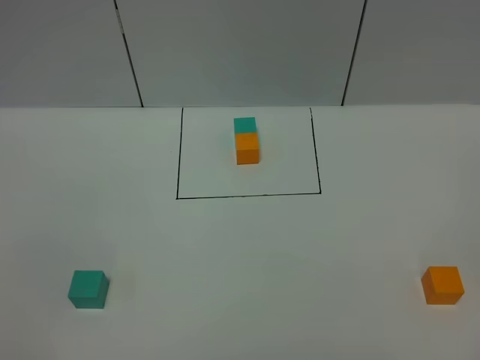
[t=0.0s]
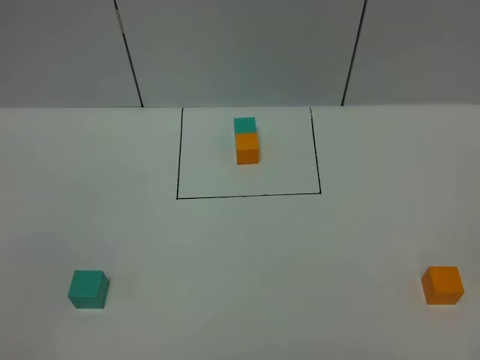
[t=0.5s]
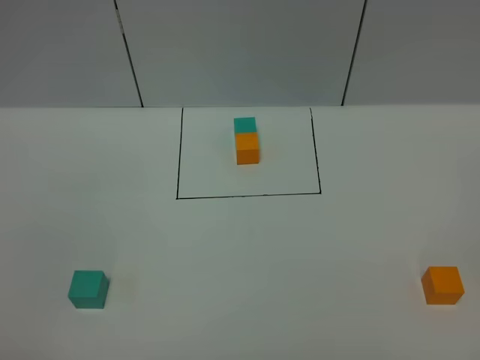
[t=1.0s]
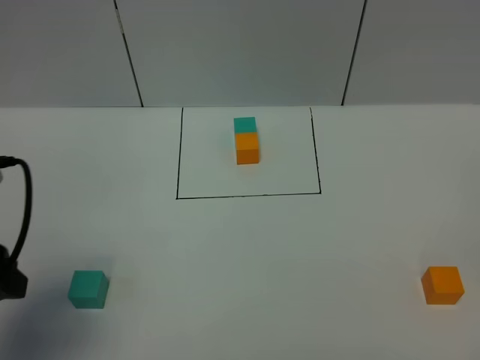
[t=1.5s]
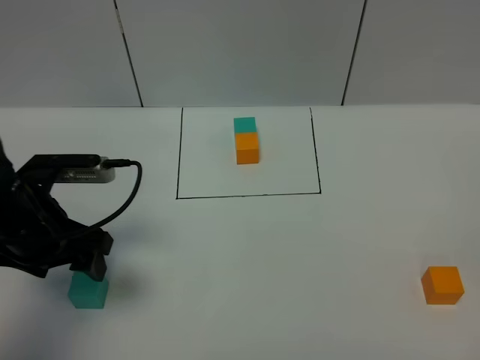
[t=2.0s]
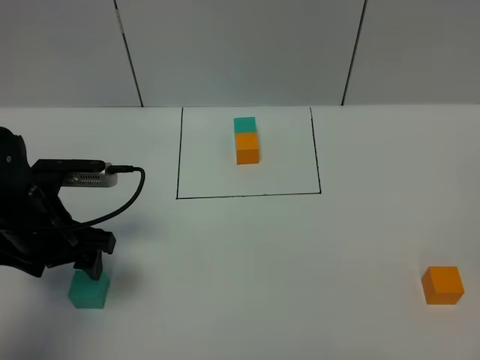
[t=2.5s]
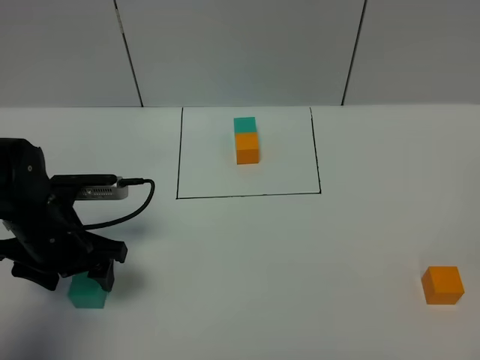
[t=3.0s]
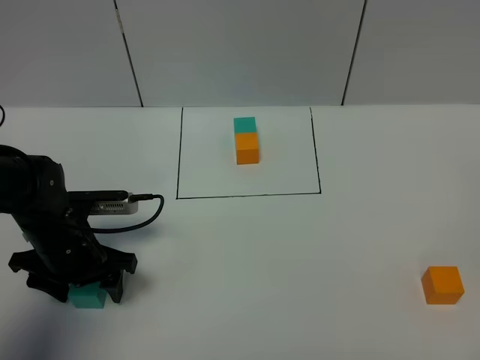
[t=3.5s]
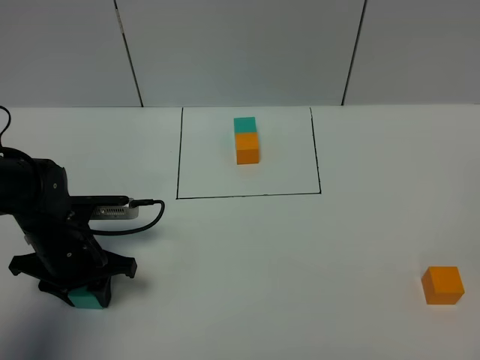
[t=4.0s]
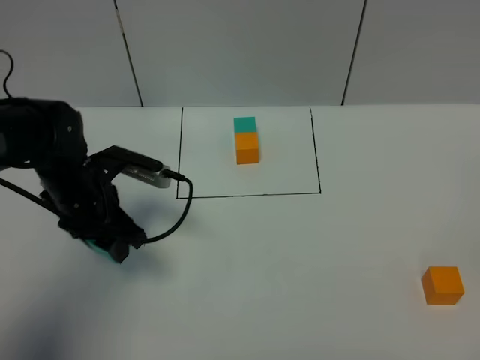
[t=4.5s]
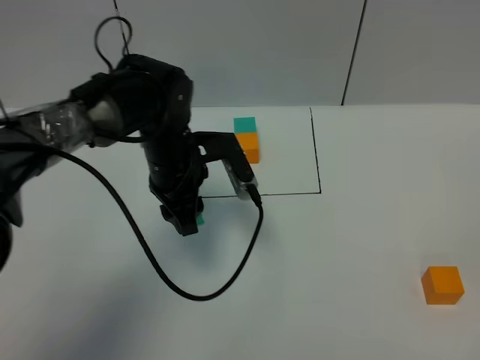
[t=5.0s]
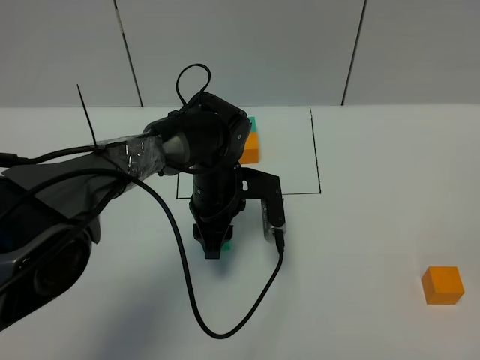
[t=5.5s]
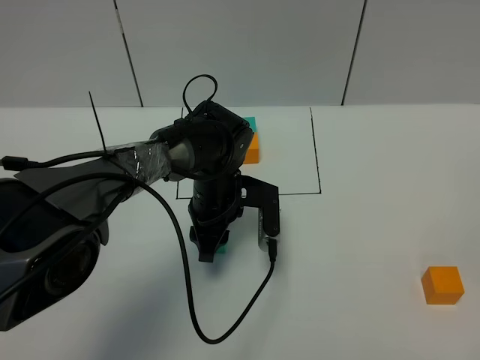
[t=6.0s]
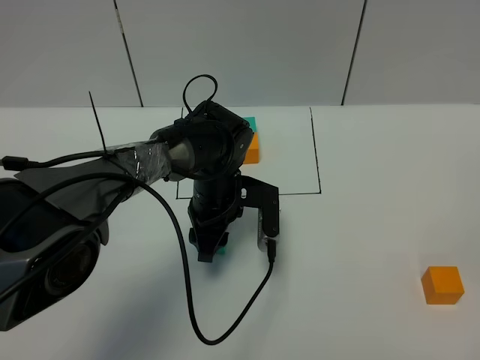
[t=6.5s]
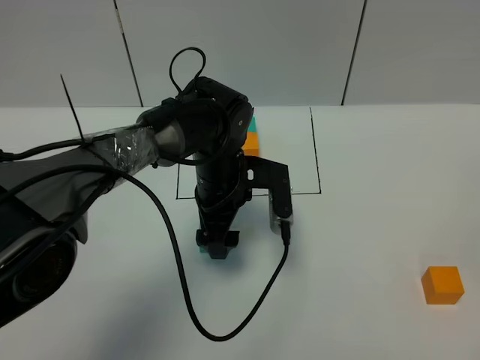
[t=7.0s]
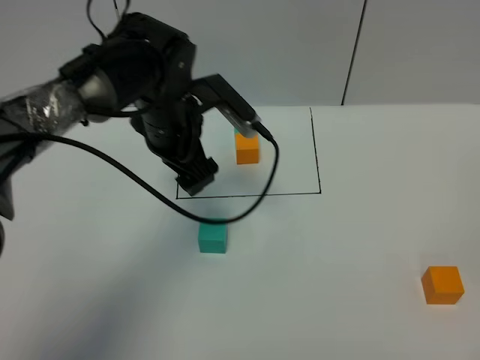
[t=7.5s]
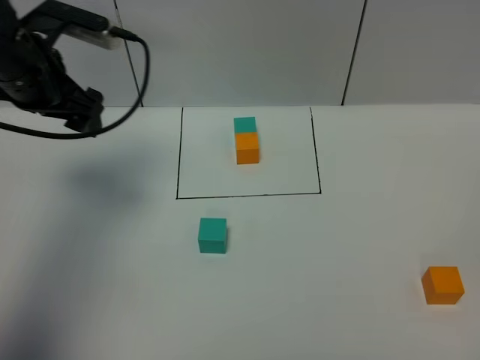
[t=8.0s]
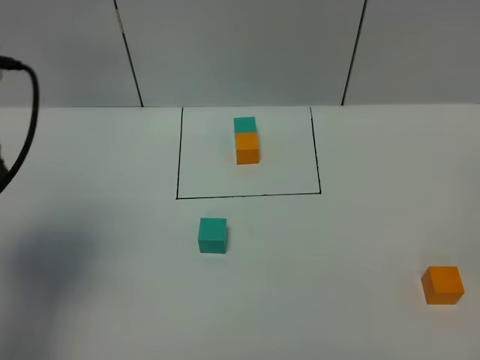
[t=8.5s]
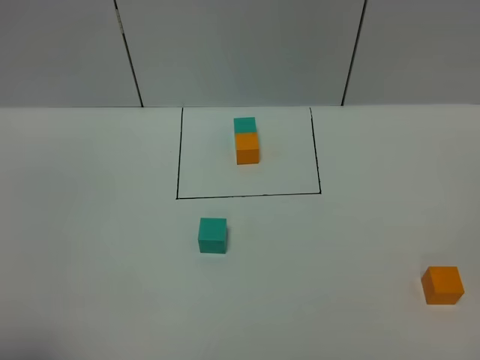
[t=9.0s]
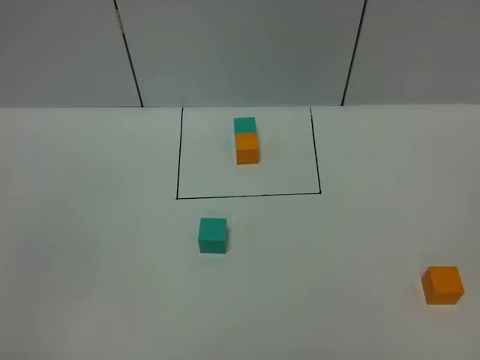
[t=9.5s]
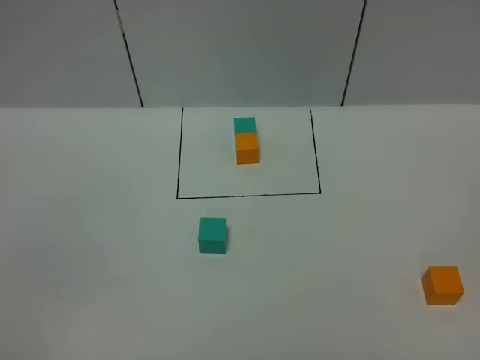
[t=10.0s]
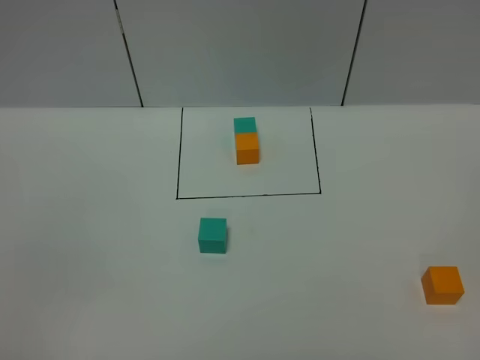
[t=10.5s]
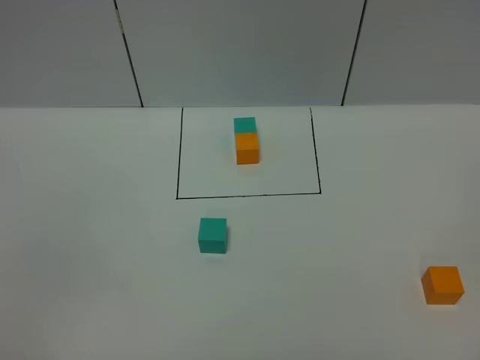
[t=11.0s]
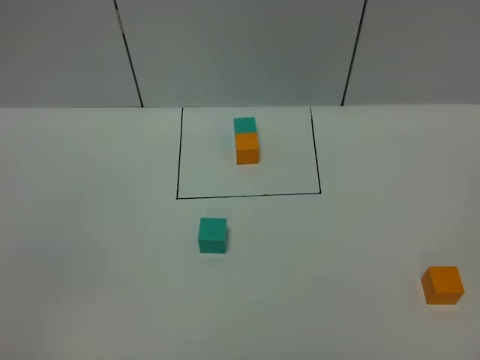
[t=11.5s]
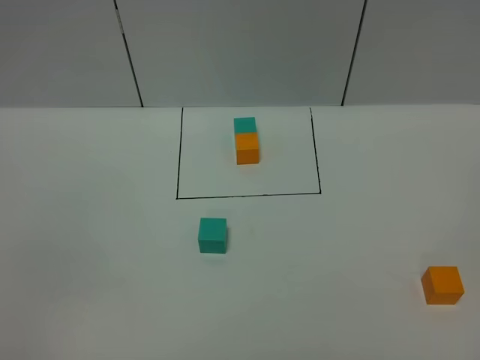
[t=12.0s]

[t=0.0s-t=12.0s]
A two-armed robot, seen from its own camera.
Task of the whole recording: According to the building block template in front, assemble the scattered blocks together.
Step, t=1.5s to t=7.0s: Put the green cube in the center of the table.
t=0.0s to t=2.0s: The left gripper heads forward, covering about 30 cm.
t=2.0s to t=4.0s: The left gripper shifts some 10 cm downward, and closes up.
t=4.0s to t=6.0s: The left gripper moves to the right and forward, roughly 20 cm.
t=6.0s to t=8.0s: The left gripper is displaced to the left and upward by some 30 cm, and opens up.
t=8.0s to t=10.0s: The left gripper is displaced backward by approximately 40 cm.

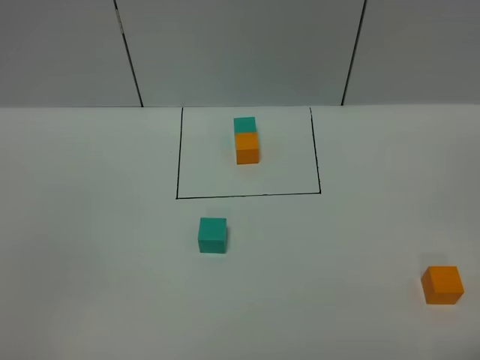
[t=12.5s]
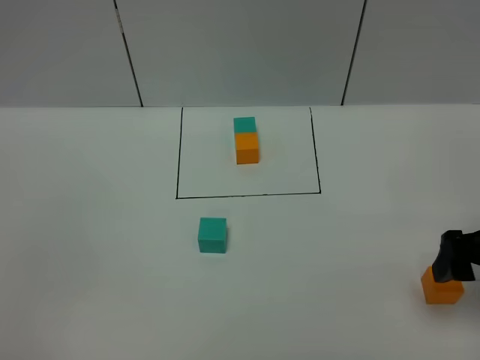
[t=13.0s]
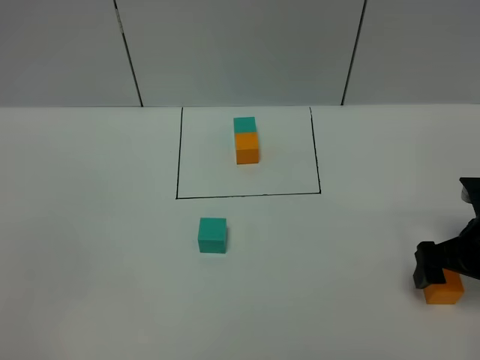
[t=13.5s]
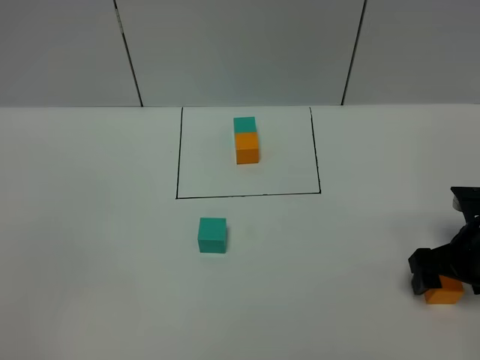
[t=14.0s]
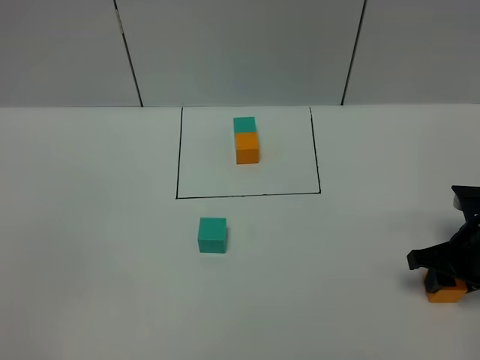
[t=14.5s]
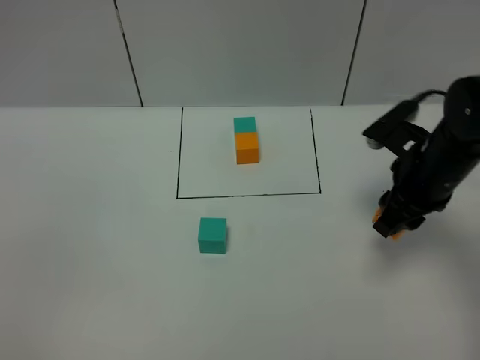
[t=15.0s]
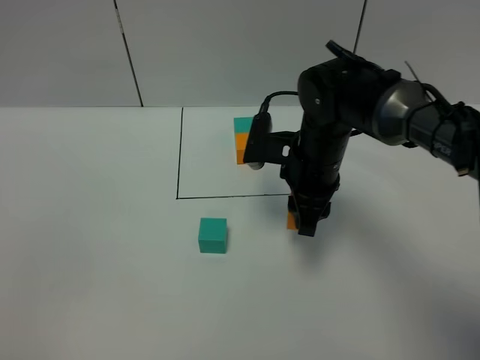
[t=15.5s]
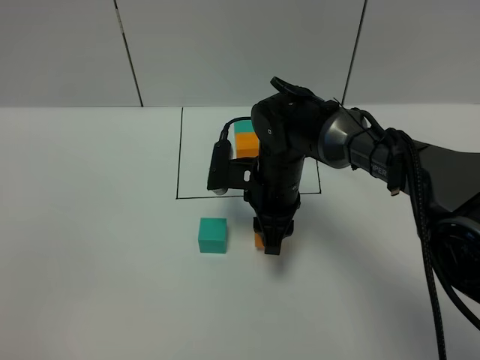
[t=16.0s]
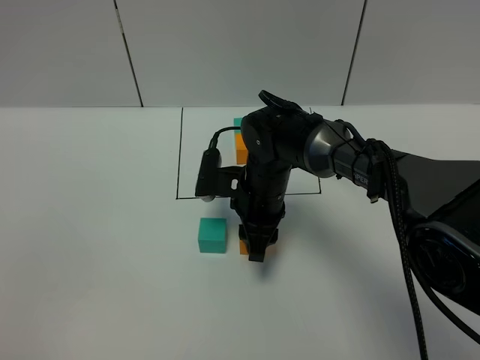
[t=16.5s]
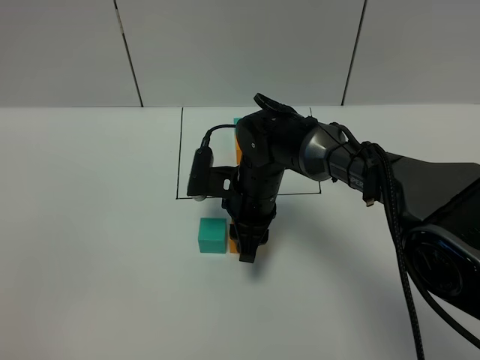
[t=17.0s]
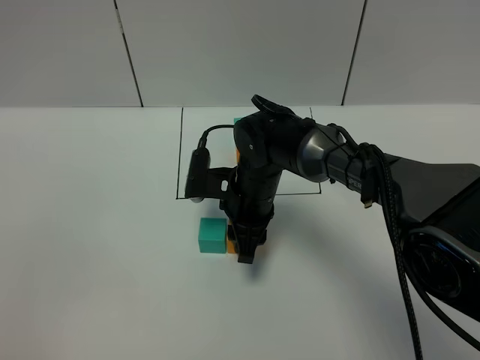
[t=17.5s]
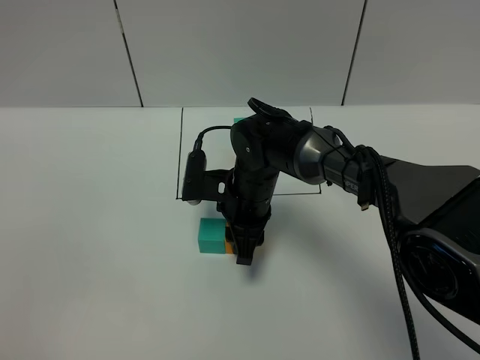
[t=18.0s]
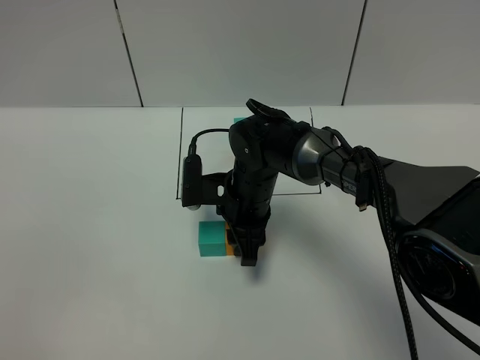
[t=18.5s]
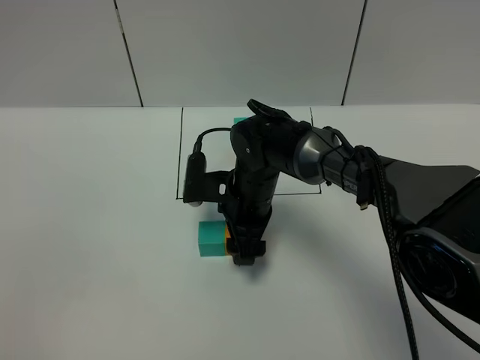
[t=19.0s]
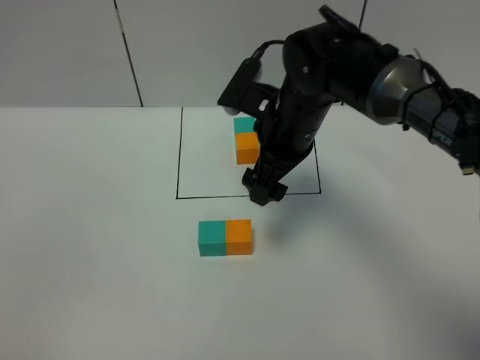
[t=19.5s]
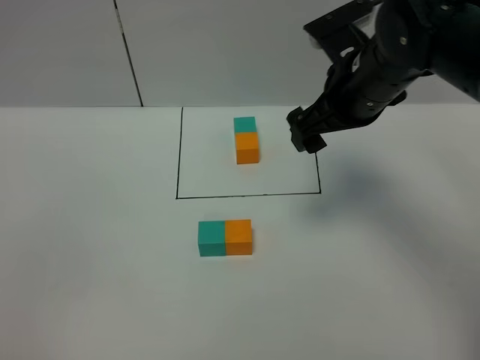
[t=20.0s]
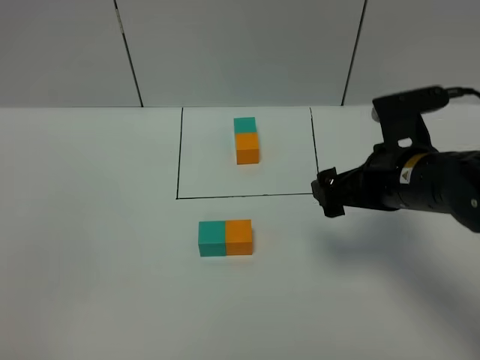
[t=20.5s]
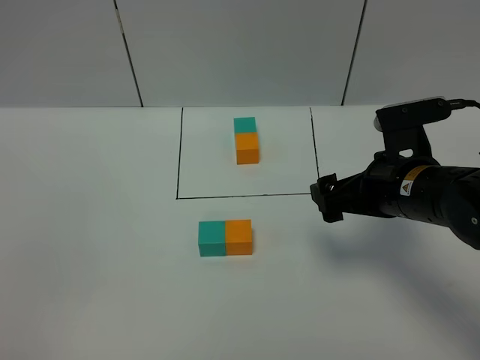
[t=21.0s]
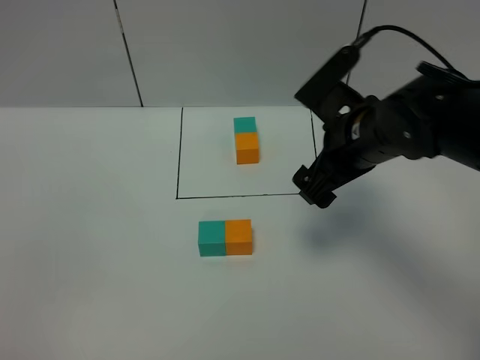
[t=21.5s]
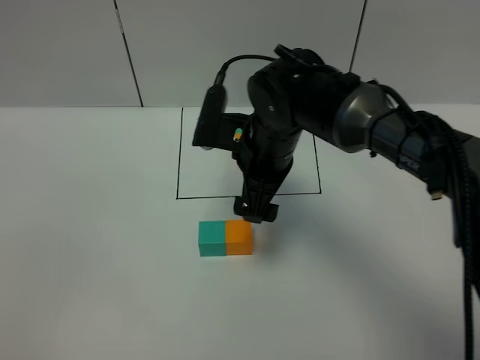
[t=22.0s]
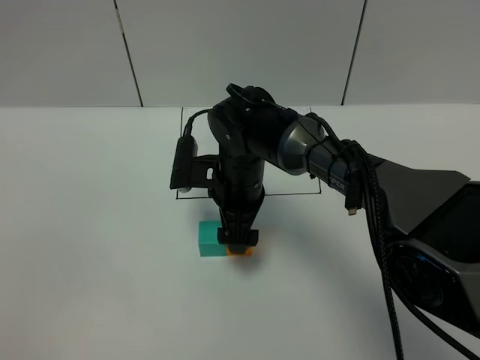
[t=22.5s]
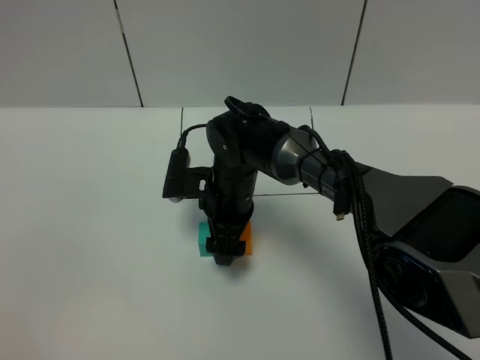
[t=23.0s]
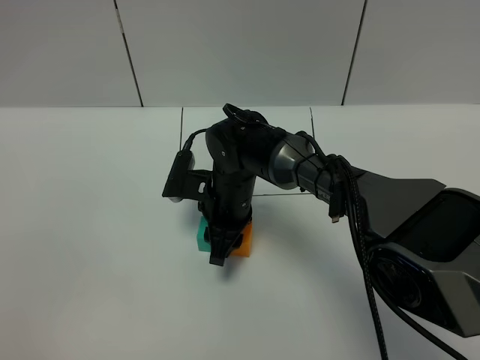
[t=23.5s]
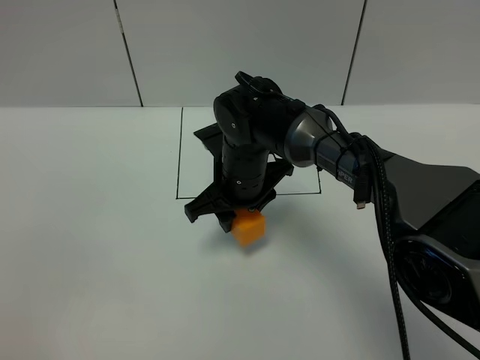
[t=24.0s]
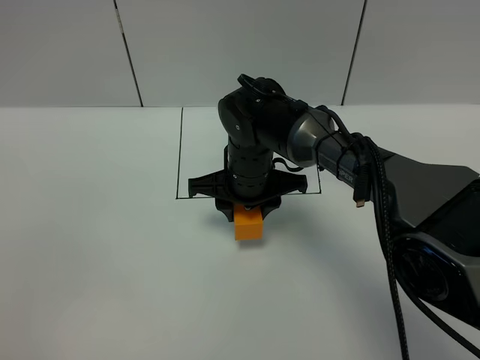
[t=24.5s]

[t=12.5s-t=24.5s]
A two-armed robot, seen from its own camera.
Task of the whole recording: According to the building block template in front, assemble the scattered blocks together.
Step, t=12.5s to t=19.0s: Put the orange cube on the right of the green cube.
t=12.5s to t=14.5s: The right gripper heads forward and downward, covering approximately 25 cm, and closes up.
t=14.5s to t=16.5s: The right gripper travels to the left by approximately 25 cm.
t=16.5s to t=18.5s: The grippers make only small movements.
t=18.5s to t=20.5s: The right gripper heads to the right, upward and backward, covering some 20 cm, and opens.
t=20.5s to t=22.5s: The right gripper shifts approximately 20 cm to the left, forward and downward.
t=22.5s to t=24.5s: The right gripper closes up.

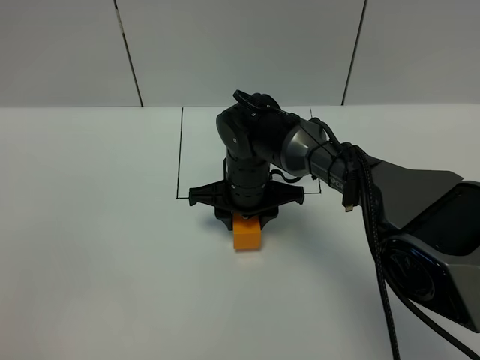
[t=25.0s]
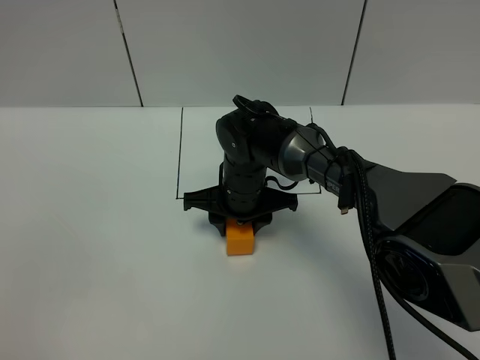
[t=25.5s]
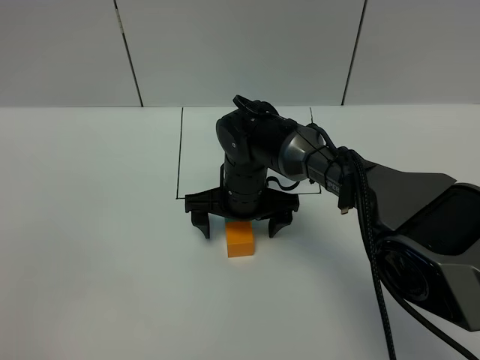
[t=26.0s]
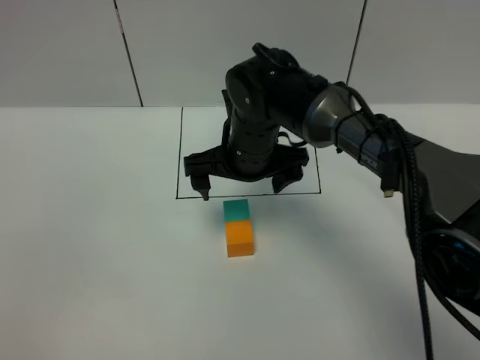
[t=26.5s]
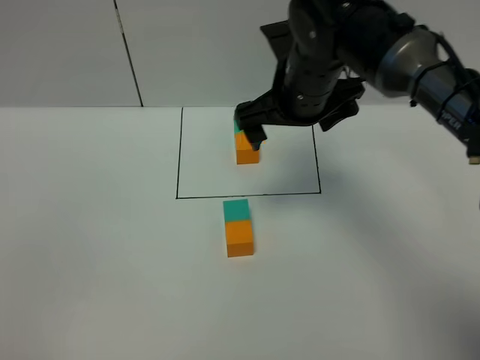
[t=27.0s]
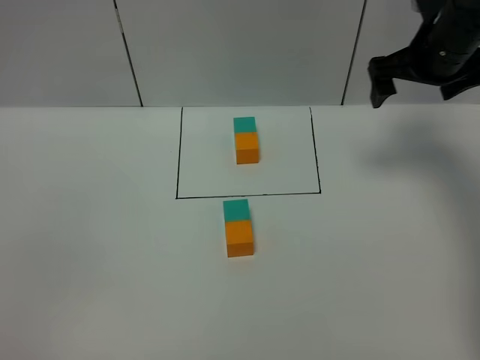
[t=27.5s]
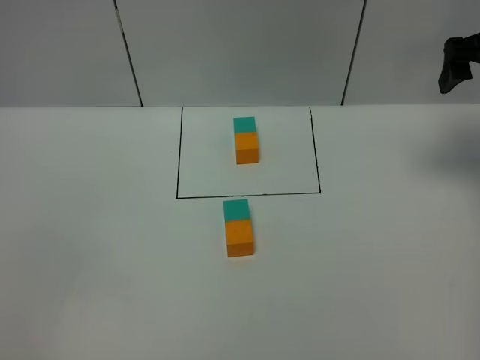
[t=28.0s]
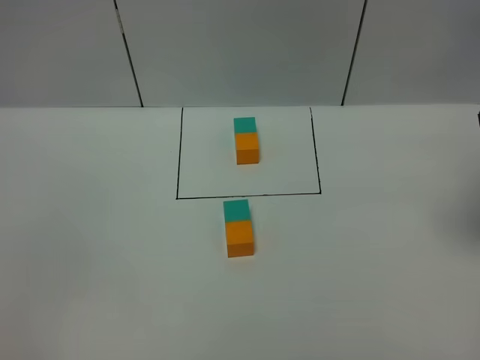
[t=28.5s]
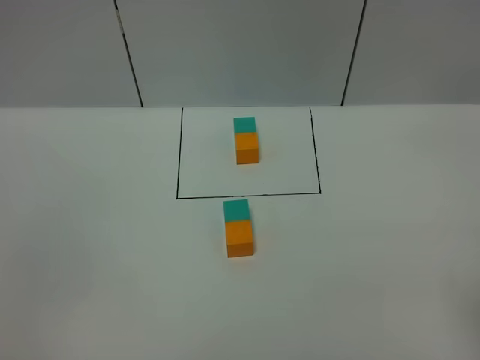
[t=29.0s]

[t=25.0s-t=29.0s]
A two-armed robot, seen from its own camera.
Task of the whole recording: According to the building block template in front, assemble the scattered blocks together.
t=25.0s to t=27.0s: The right gripper moves upward and to the right, about 15 cm, and opens up.
t=27.0s to t=29.0s: The right gripper moves backward and to the right, roughly 35 cm.
